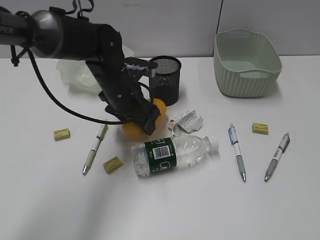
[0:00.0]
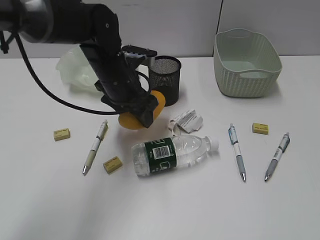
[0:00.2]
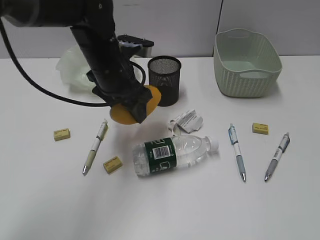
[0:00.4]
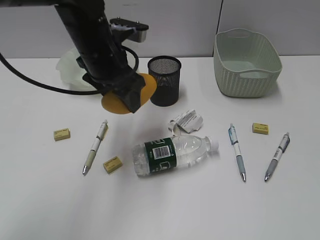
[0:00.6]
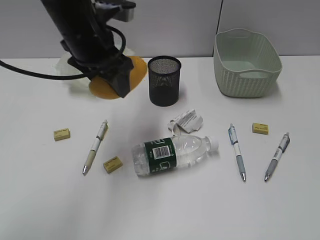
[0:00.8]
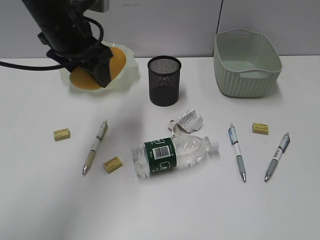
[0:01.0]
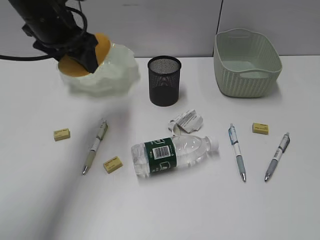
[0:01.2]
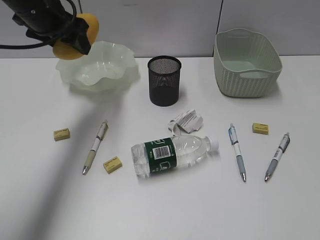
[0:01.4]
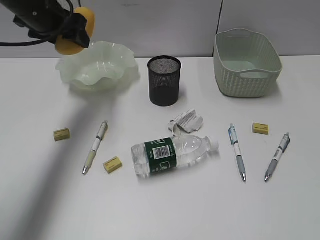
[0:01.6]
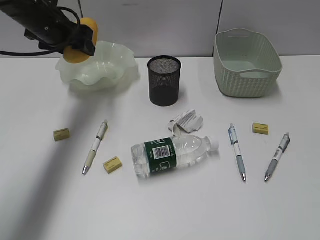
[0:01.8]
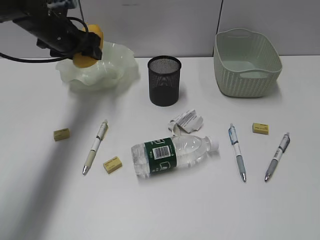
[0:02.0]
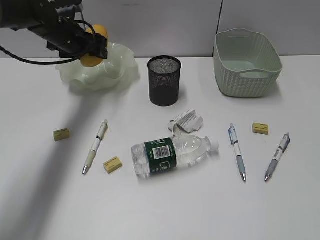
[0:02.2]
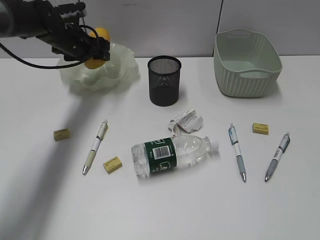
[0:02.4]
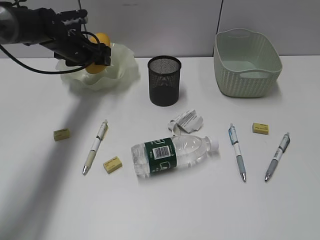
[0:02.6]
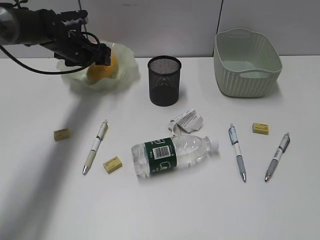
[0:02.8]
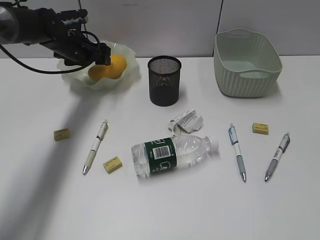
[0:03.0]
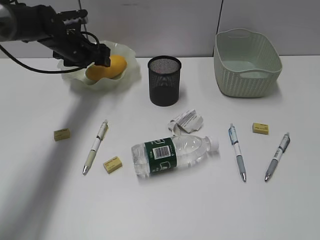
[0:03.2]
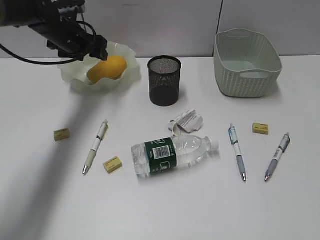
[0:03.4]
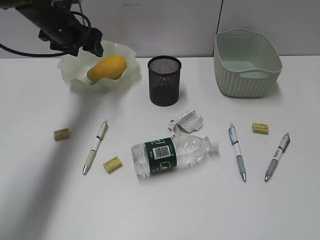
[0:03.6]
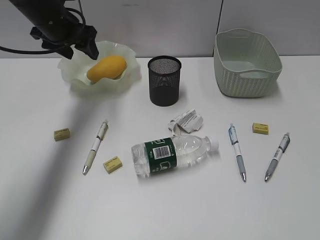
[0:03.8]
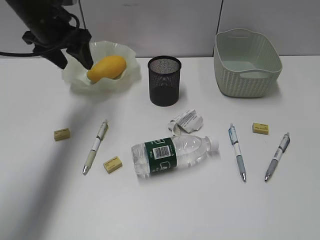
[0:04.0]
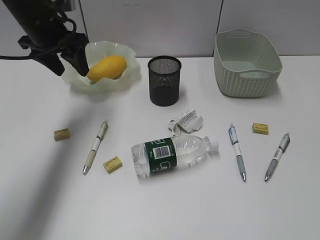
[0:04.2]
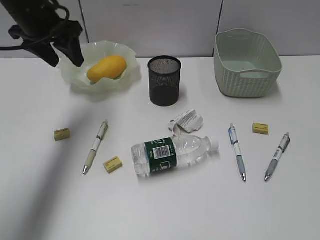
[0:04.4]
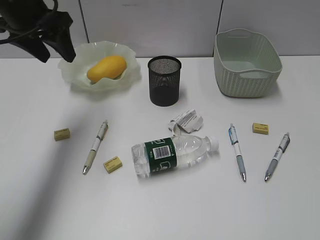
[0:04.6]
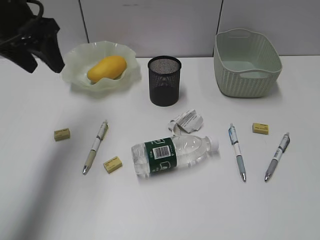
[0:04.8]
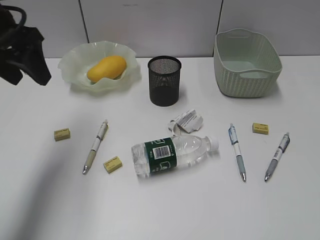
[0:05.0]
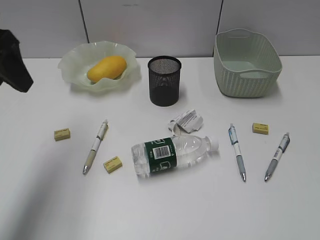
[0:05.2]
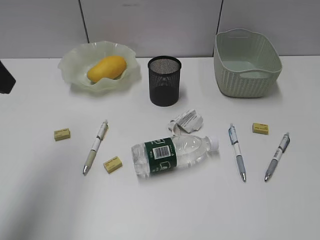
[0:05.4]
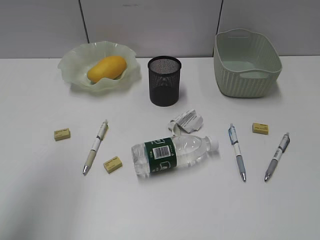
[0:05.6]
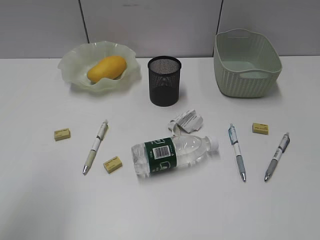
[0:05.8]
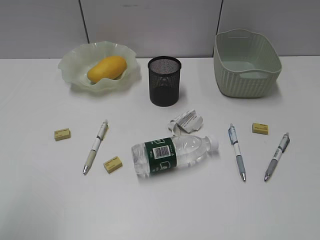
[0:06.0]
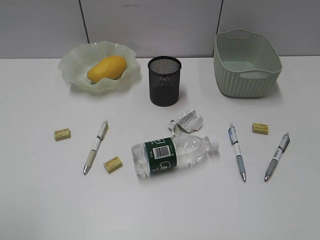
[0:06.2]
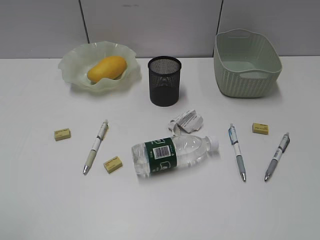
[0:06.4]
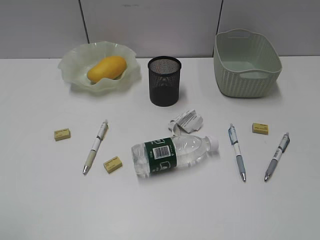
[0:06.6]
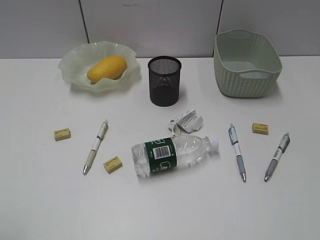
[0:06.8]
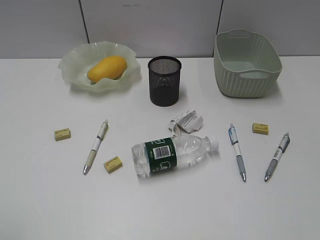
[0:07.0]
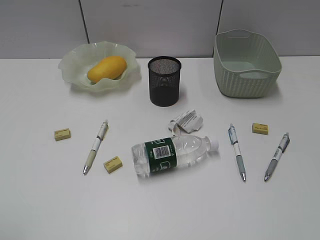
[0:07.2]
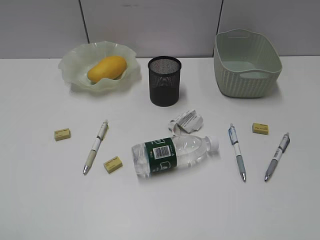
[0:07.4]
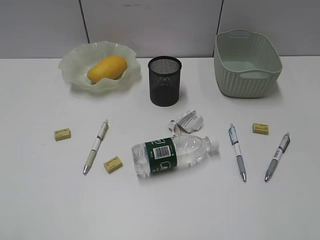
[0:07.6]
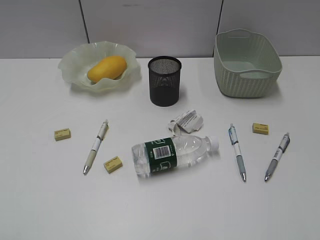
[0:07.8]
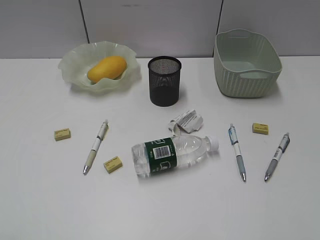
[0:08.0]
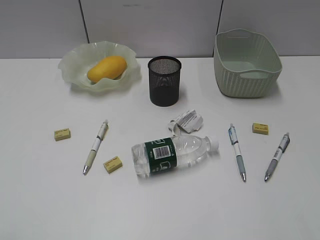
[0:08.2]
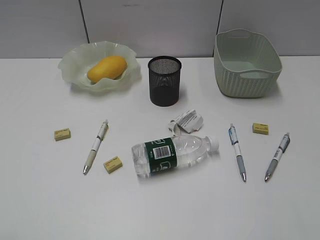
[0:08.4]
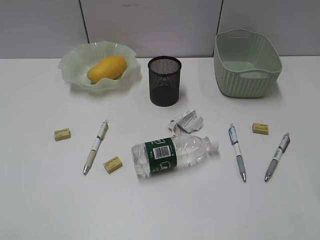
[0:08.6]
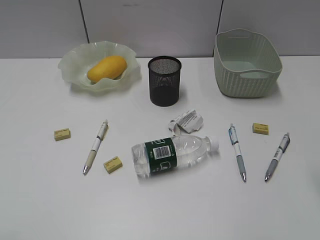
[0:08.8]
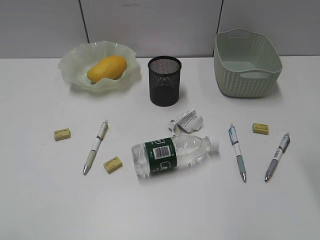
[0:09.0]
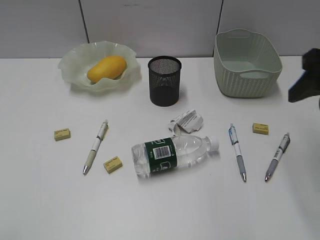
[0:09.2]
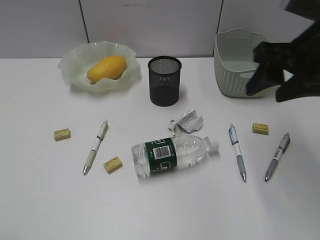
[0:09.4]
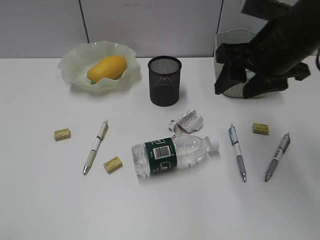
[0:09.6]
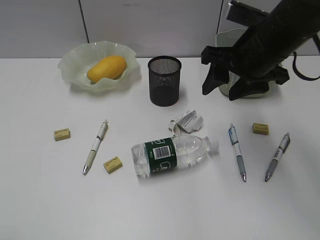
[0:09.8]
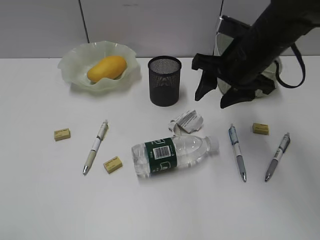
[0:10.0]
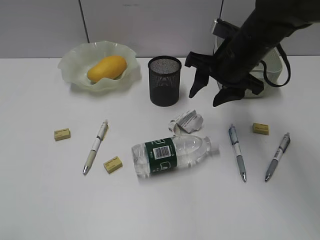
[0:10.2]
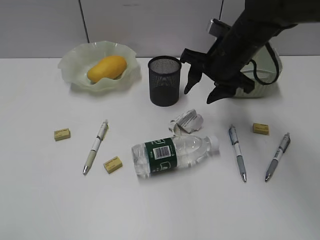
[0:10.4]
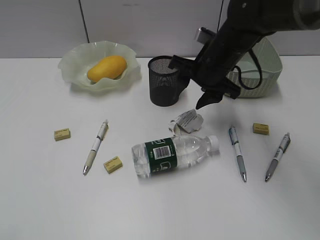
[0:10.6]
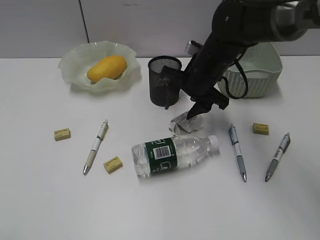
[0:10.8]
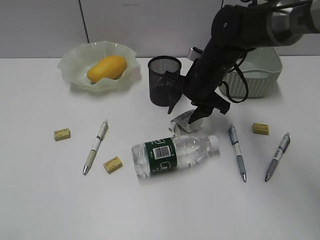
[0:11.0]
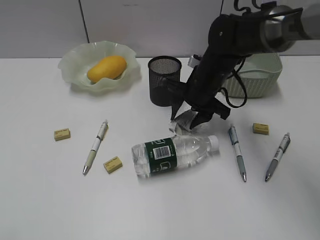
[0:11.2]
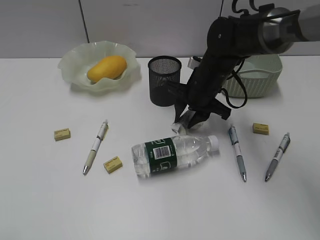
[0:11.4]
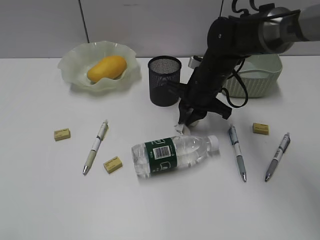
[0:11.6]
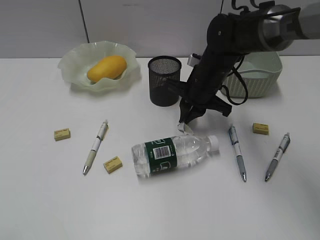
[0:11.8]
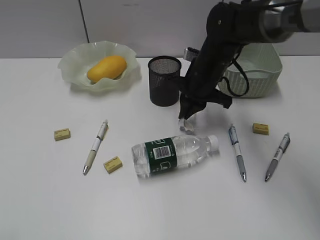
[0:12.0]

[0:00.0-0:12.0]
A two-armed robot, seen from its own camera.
Step, 0:00.0 to 0:03.6: Place the mango in the plate with left gripper.
Step, 0:03.8 to 0:11.8: Grasp the waste paper with right gripper.
0:00.0 to 0:01.6: The left gripper goes approximately 20 cm to the left and upward.
0:01.6 to 0:03.0: The left gripper goes approximately 15 cm downward and forward.
0:03.0 to 0:04.4: The left gripper heads upward and backward, covering roughly 15 cm.
0:04.4 to 0:06.0: The left gripper travels backward by approximately 35 cm.
0:09.0 to 0:10.4: The right gripper heads forward, to the left and downward, covering some 25 cm.
0:10.4 to 0:12.0: The right gripper heads downward, covering about 5 cm, and closes its fingers.

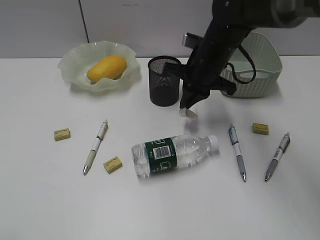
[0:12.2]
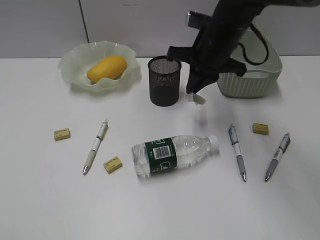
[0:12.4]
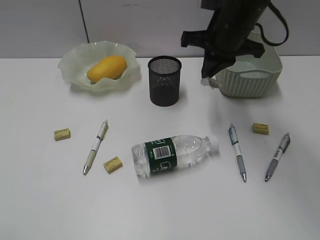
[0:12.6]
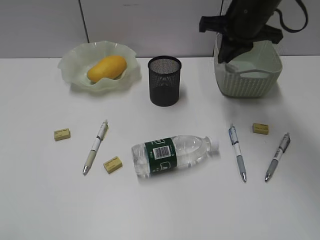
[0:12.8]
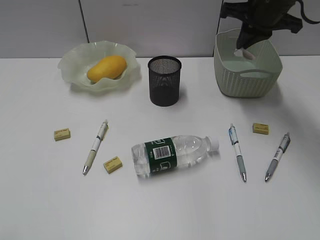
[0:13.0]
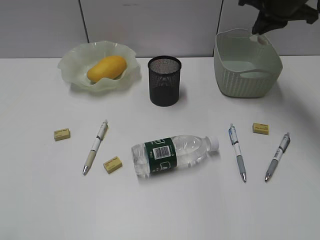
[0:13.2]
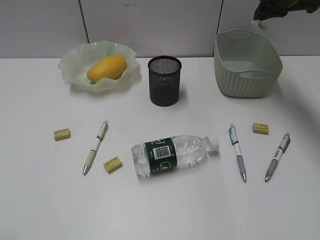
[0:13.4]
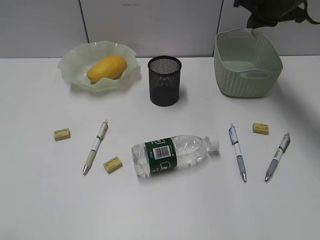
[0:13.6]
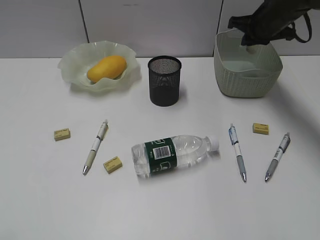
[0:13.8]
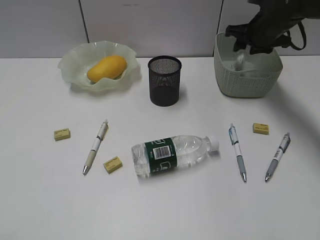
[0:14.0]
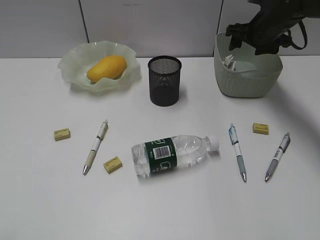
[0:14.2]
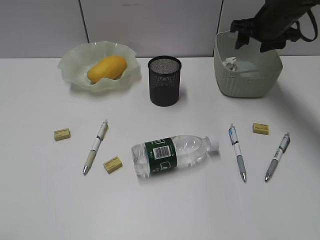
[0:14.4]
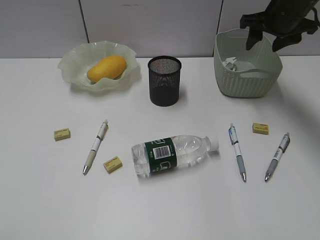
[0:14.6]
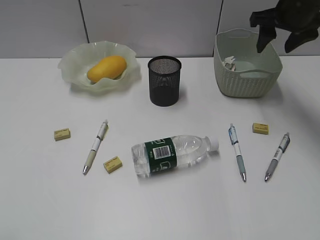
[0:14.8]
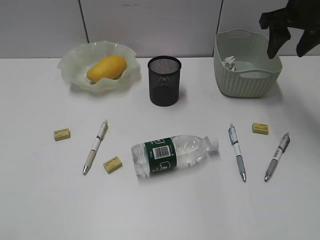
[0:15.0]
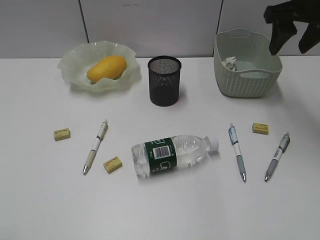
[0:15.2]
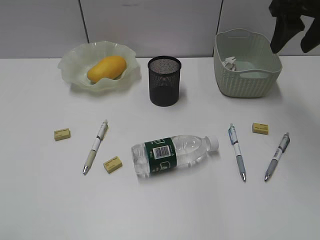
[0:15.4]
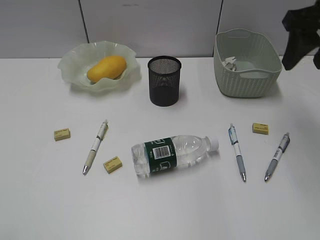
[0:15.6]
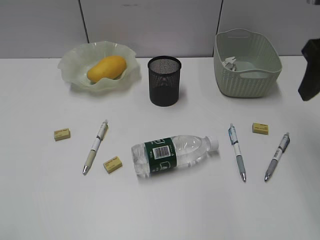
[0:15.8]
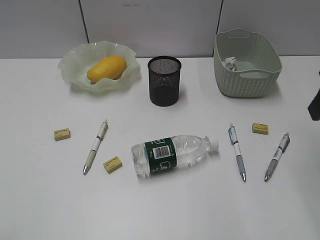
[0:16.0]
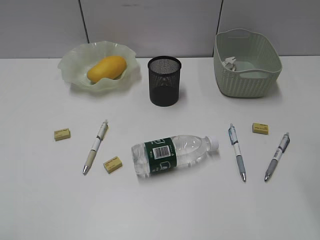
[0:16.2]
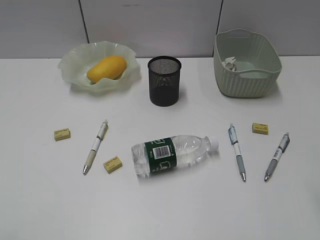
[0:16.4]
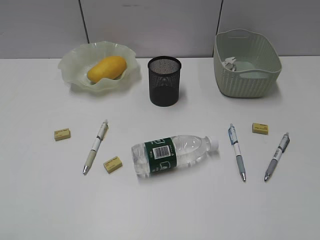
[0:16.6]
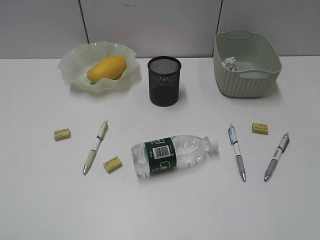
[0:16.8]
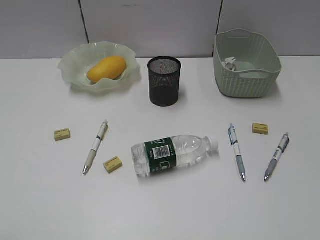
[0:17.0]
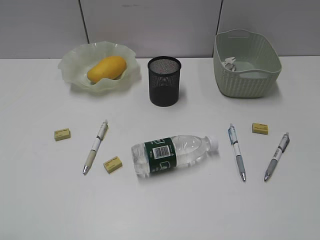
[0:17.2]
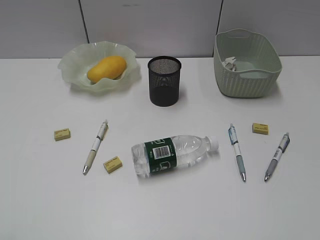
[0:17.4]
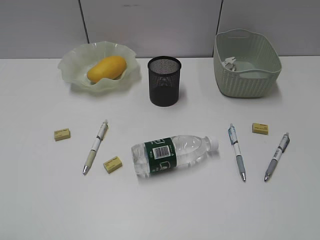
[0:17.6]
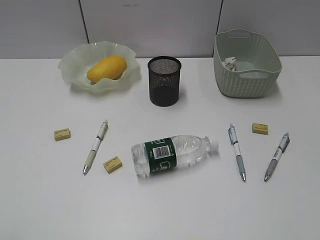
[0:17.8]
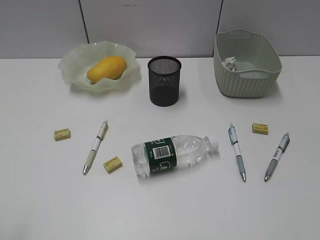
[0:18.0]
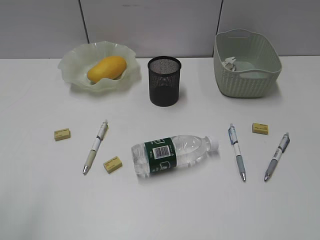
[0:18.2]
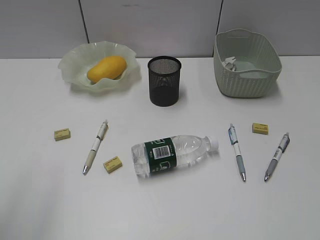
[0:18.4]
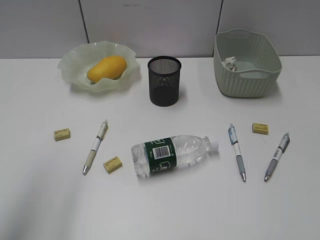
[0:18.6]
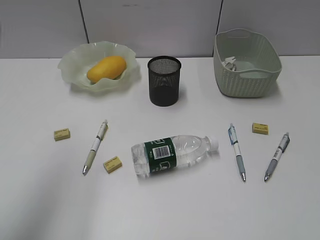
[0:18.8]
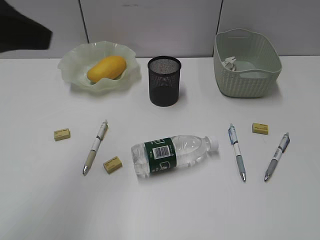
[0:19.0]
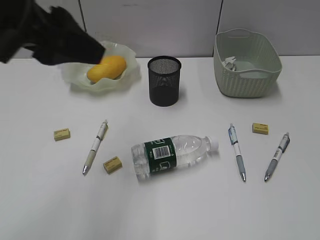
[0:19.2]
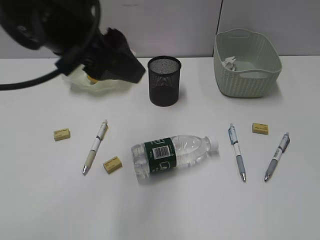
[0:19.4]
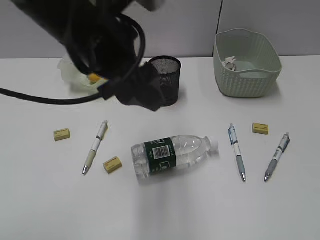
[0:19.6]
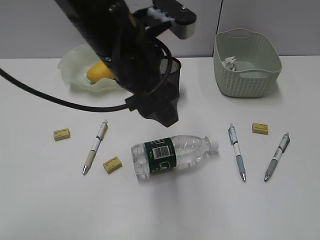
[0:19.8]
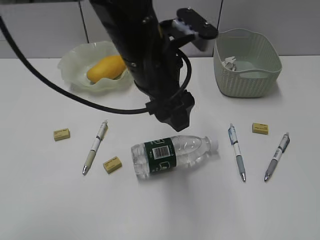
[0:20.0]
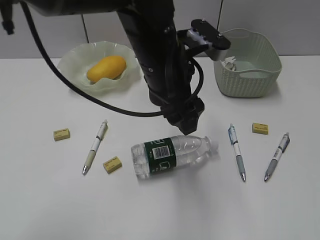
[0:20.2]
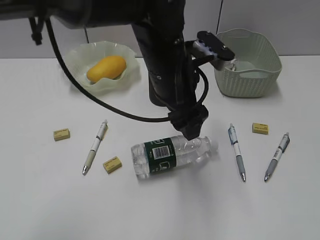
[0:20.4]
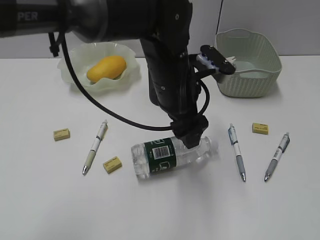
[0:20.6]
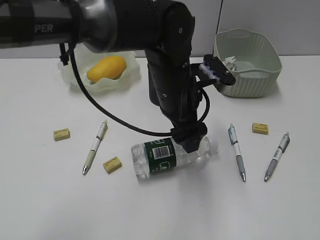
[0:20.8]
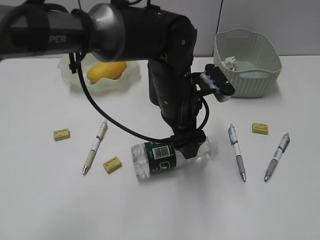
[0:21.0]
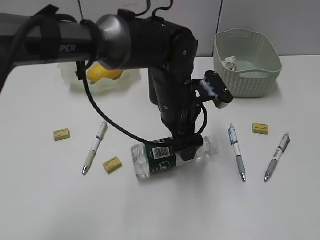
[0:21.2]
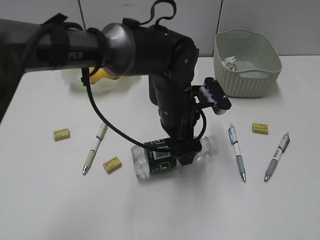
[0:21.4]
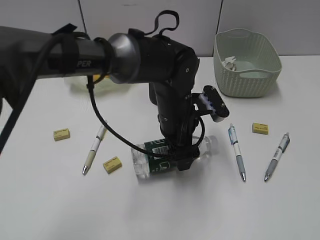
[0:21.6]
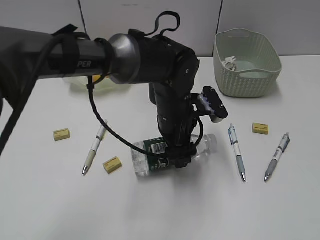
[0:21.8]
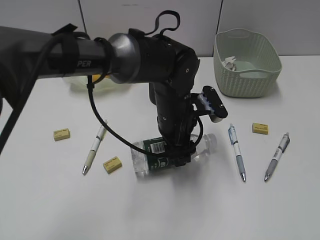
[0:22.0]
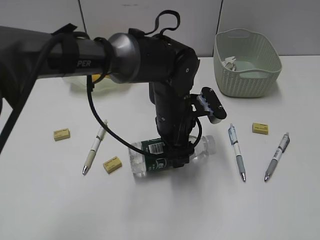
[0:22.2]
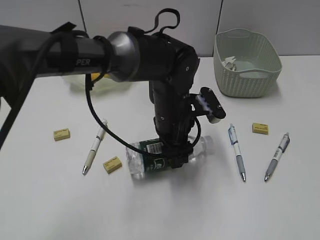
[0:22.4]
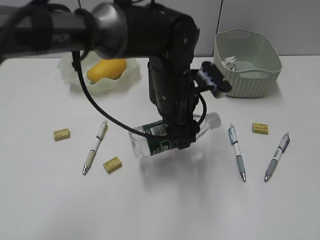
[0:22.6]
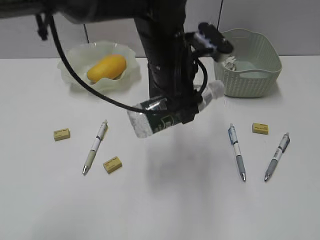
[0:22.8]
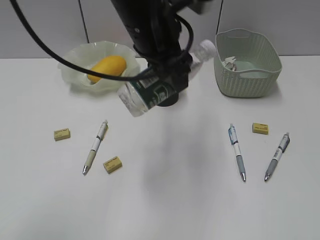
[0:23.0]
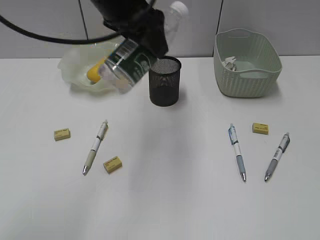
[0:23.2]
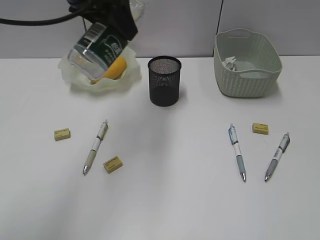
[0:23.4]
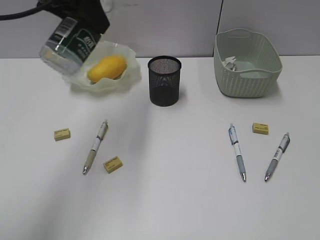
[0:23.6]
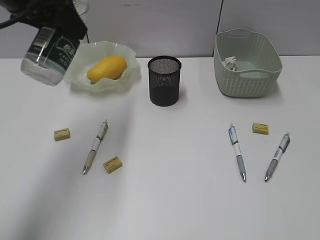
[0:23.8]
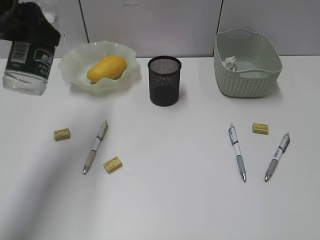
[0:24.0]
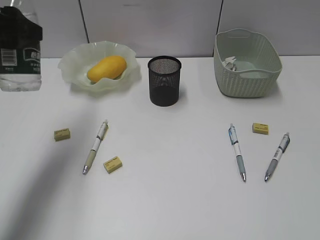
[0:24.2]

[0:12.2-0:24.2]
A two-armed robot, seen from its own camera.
Step, 0:12.2 to 0:14.2: Place the waste paper in the basket with right gripper.
Step, 0:14.4 to 0:22.0: Grasp the bottle with left gripper.
0:12.2 to 0:13.8: The right gripper goes about 15 cm to the right and forward.
0:13.8 to 0:15.2: The right gripper moves backward and upward, approximately 15 cm, and opens.
0:15.2 to 0:16.6: The right gripper shifts roughly 30 cm backward.
0:18.2 to 0:19.8: The left gripper travels to the right and forward by about 35 cm, and opens up.
0:19.8 to 0:21.2: The left gripper travels downward and to the right by roughly 15 cm.
0:21.2 to 0:22.6: The grippers make only small movements.
0:22.6 to 0:24.2: The left gripper shifts roughly 30 cm to the left and upward.
